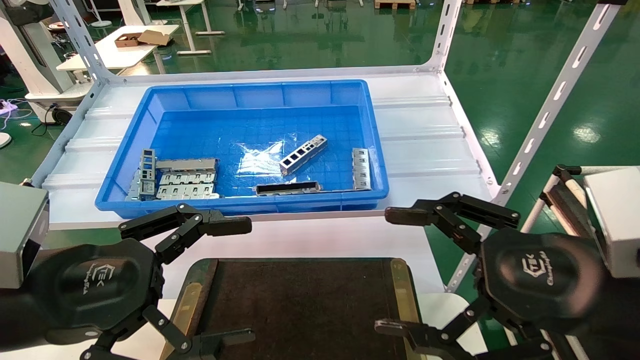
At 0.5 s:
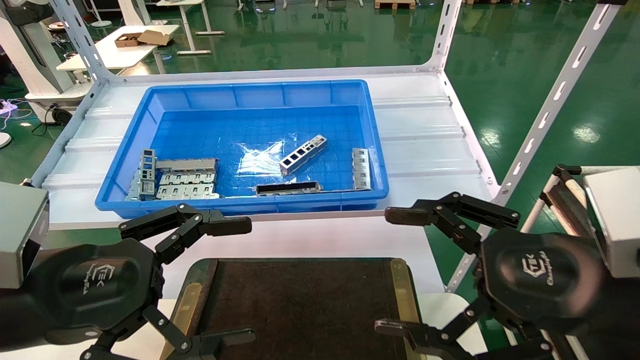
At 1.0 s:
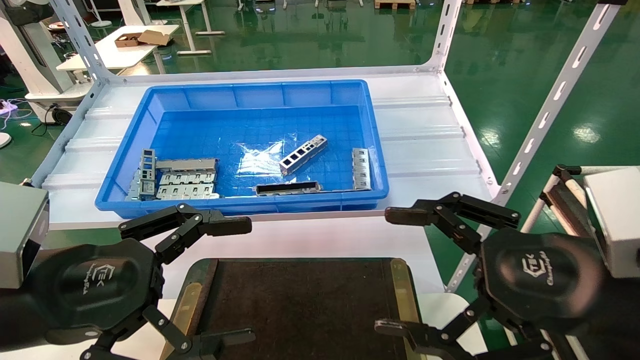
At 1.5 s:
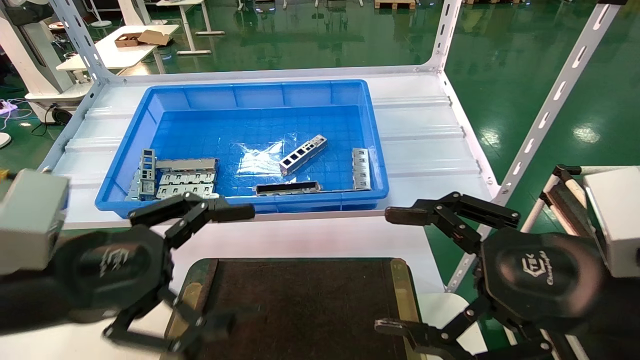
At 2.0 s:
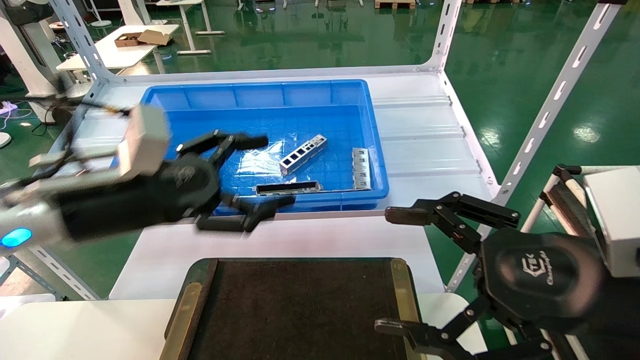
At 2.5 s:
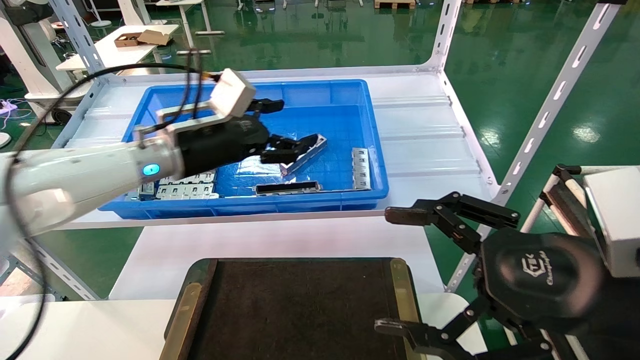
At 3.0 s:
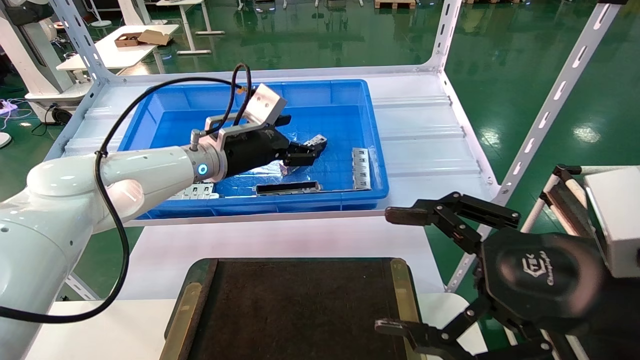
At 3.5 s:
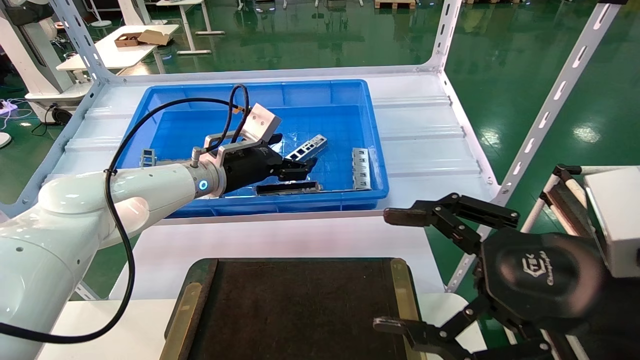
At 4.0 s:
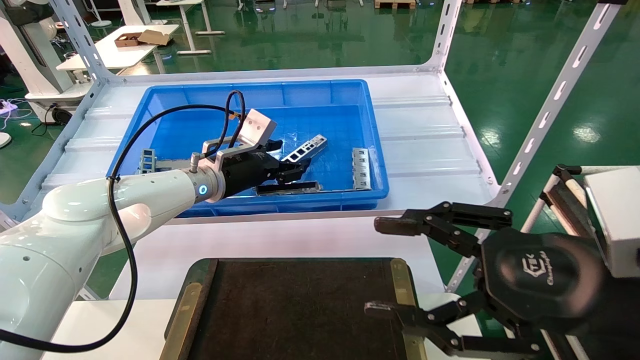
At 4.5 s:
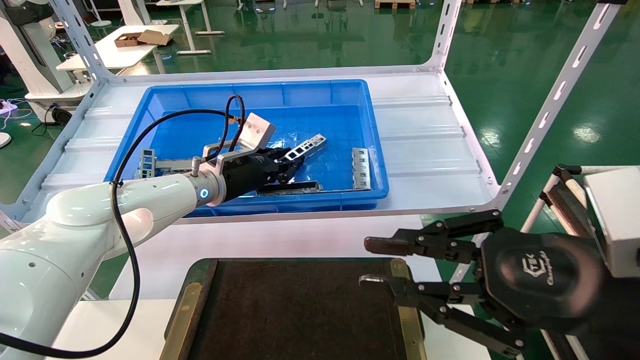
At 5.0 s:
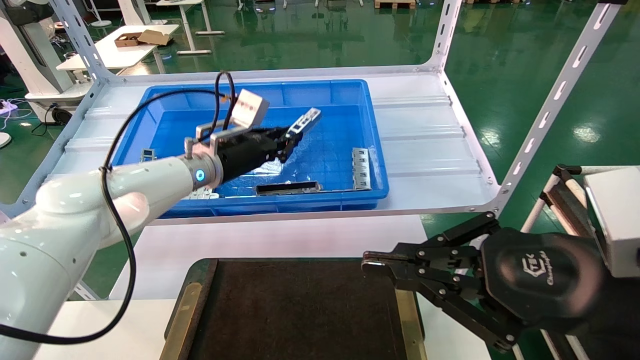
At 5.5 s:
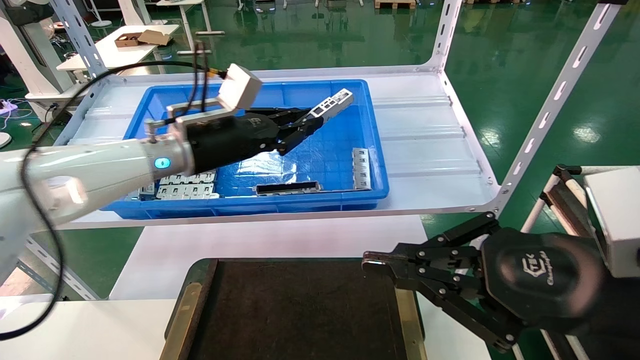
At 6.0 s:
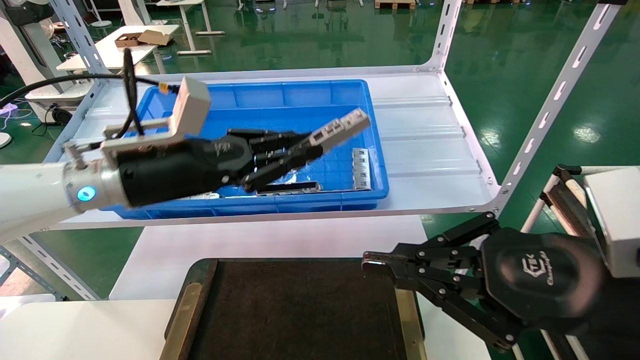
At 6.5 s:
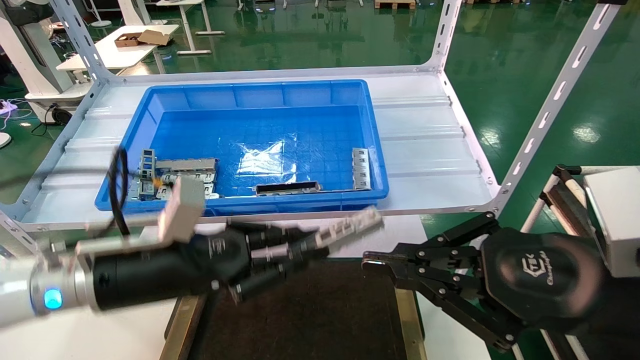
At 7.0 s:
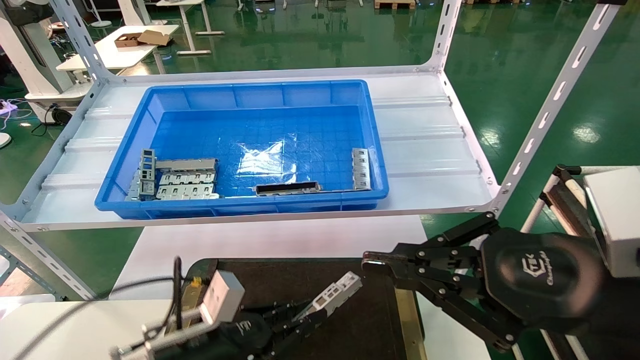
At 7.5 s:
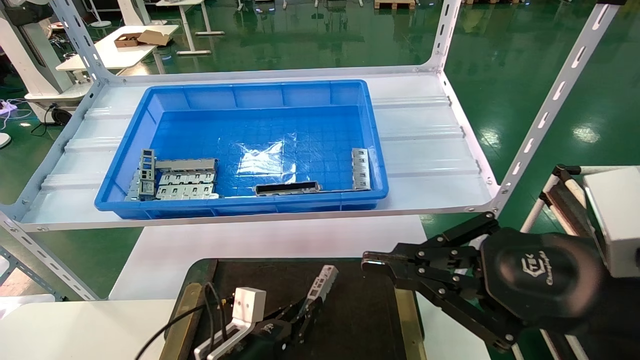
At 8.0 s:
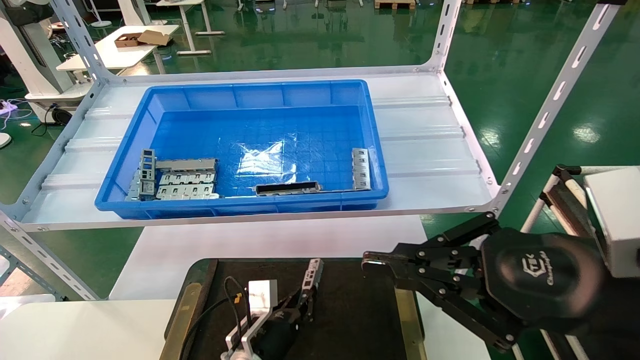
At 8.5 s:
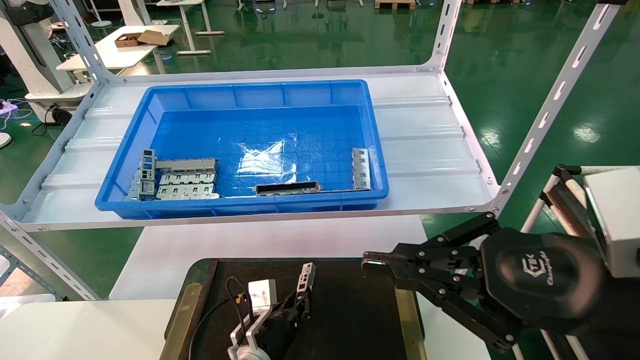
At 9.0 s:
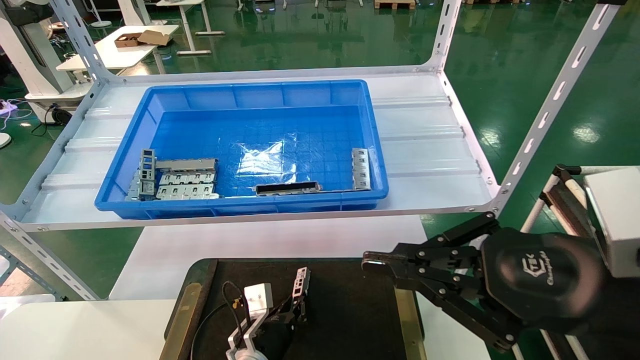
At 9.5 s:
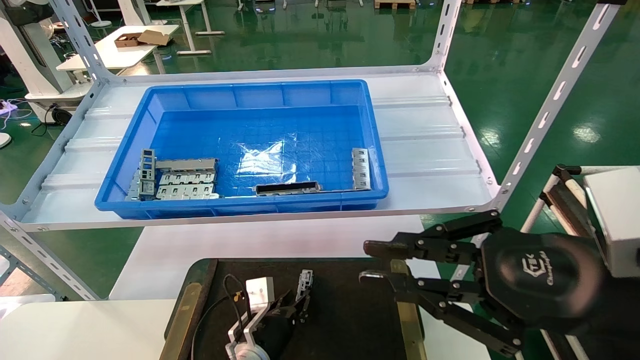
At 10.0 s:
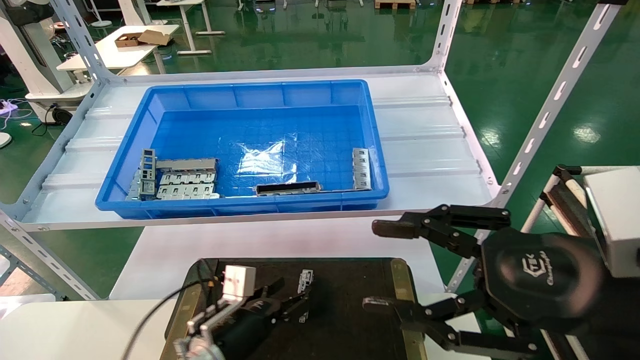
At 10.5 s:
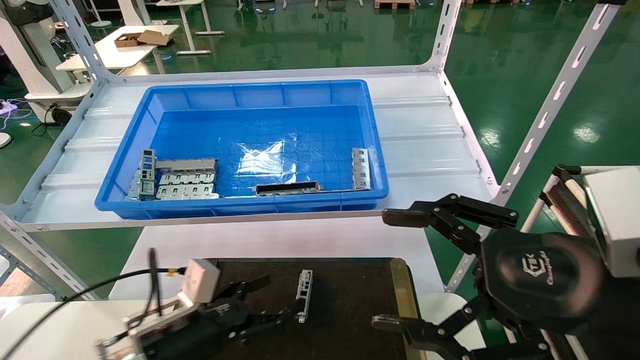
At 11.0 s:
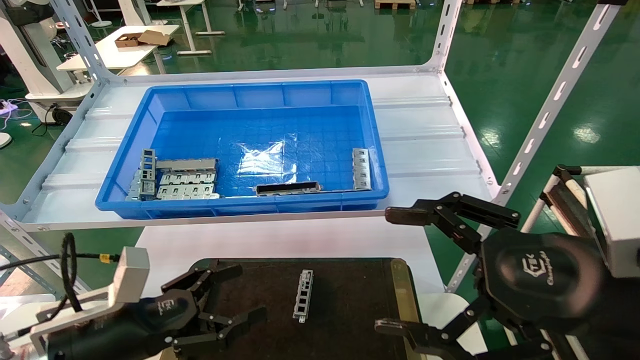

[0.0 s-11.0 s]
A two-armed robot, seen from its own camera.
Task of the whole recording: Grasp the part with one hand and place it on the black container.
Step, 2.0 to 5.0 s: Pick up the front USB bracket from the feeding area.
Step, 5.5 to 9.5 s: Place the front USB bracket into the box.
0.0 to 2.0 s: The left gripper is displaced forward by roughly 10 cm.
2.0 to 3.5 s: The left gripper travels forward and to the right by approximately 20 cm.
3.5 to 5.5 s: The right gripper closes, while the left gripper travels backward by roughly 5 cm, and closes its fingers.
5.5 to 7.5 s: The left gripper heads downward, covering about 30 cm.
7.5 to 9.0 s: The left gripper shifts roughly 5 cm forward.
9.0 to 11.0 s: The left gripper heads to the left, upward and backward, covering roughly 25 cm, and opens up, while the right gripper opens.

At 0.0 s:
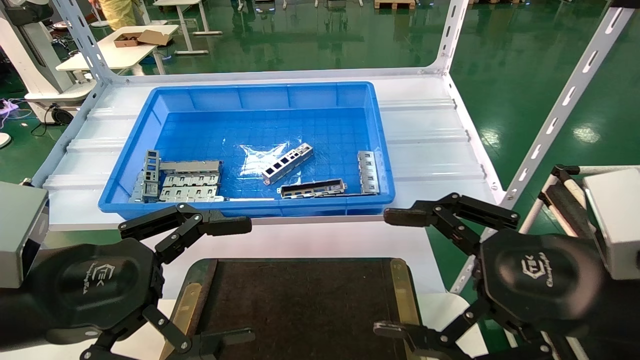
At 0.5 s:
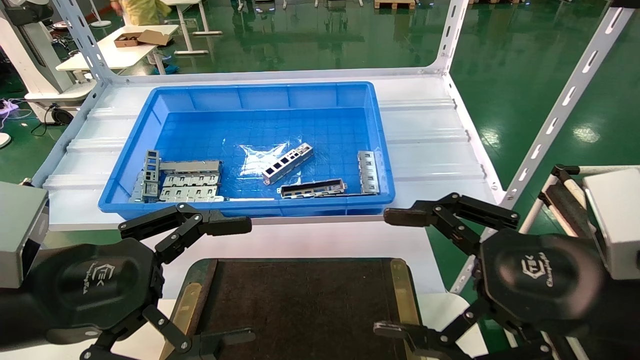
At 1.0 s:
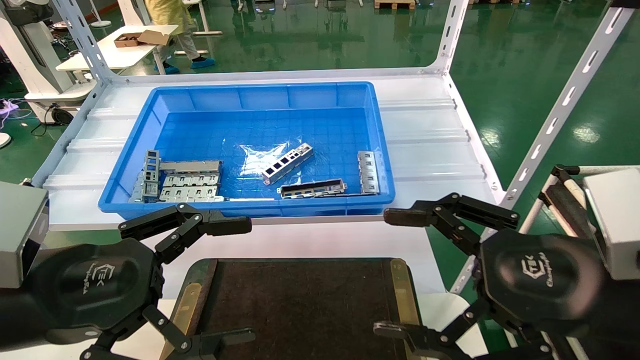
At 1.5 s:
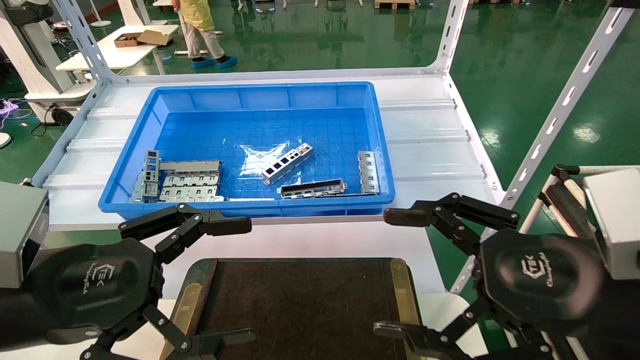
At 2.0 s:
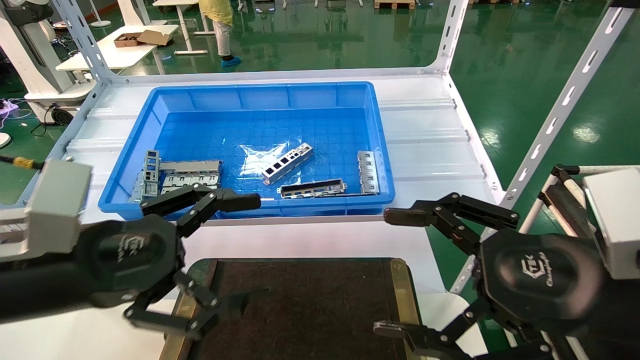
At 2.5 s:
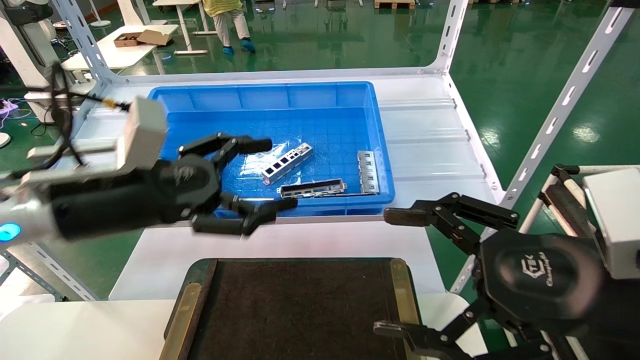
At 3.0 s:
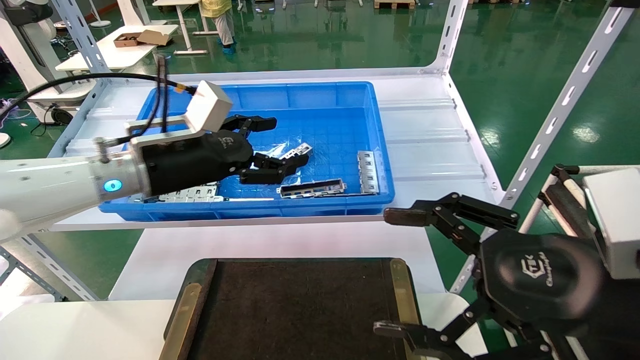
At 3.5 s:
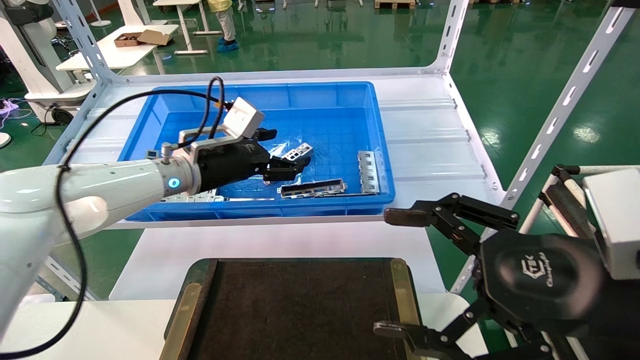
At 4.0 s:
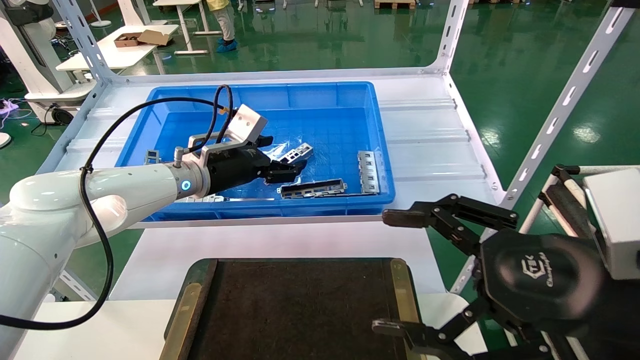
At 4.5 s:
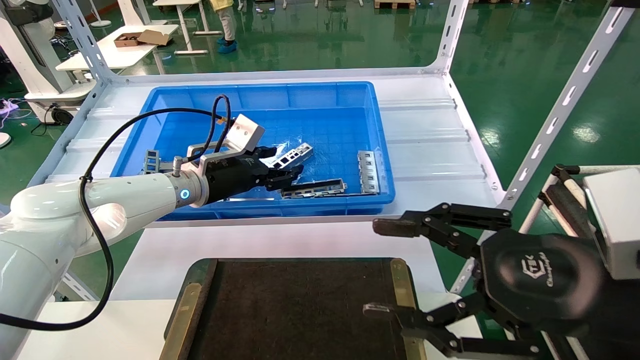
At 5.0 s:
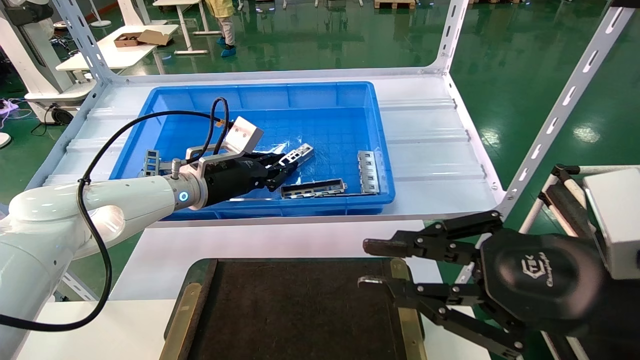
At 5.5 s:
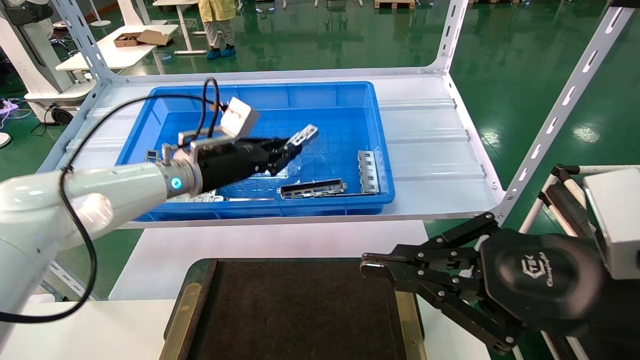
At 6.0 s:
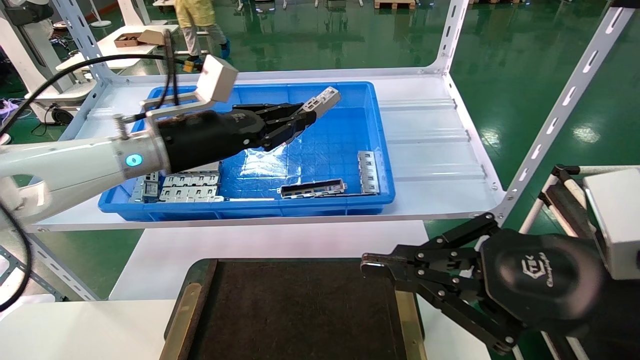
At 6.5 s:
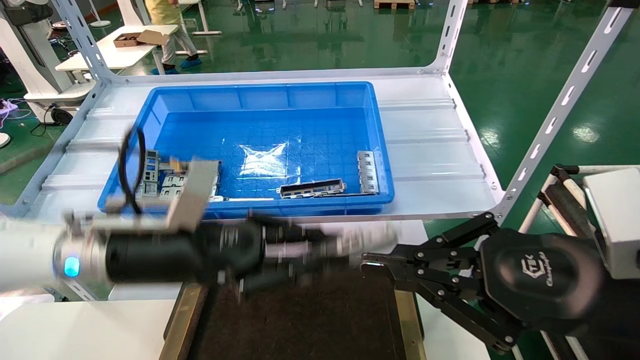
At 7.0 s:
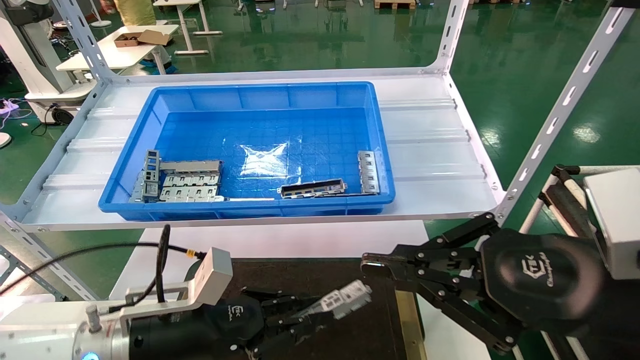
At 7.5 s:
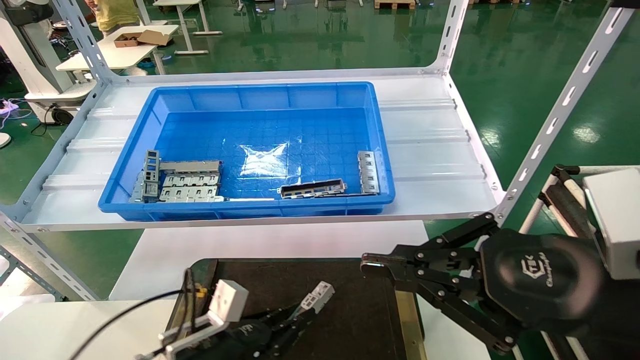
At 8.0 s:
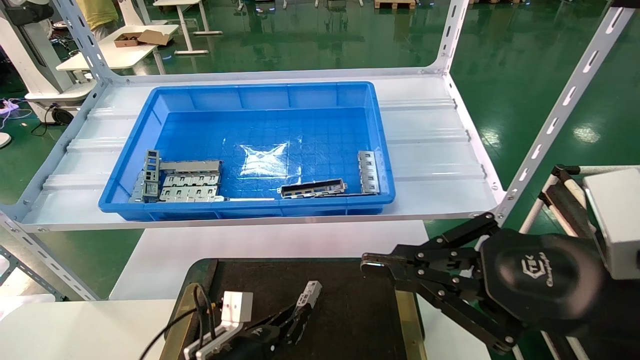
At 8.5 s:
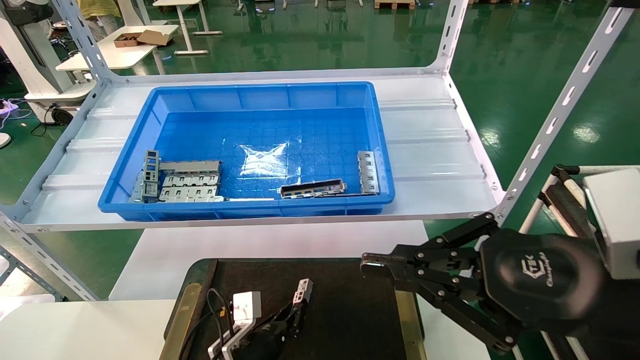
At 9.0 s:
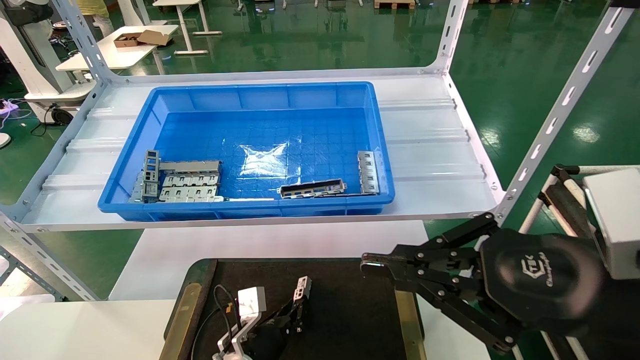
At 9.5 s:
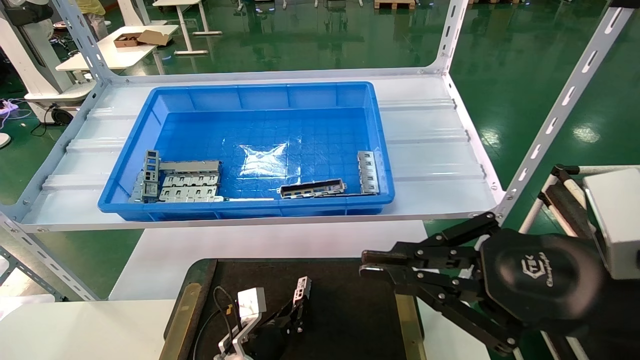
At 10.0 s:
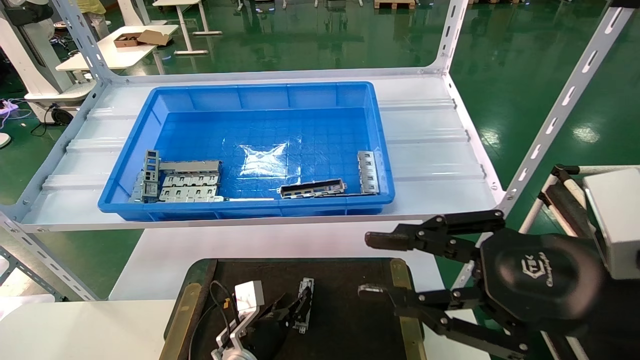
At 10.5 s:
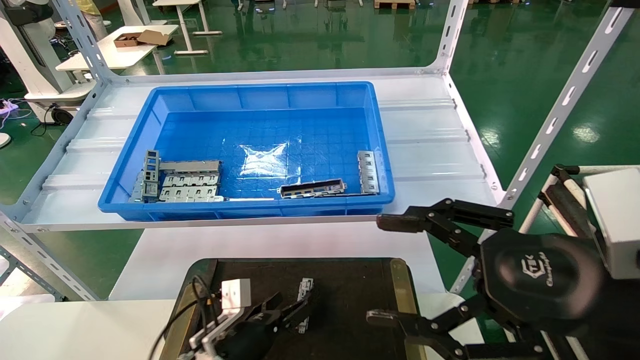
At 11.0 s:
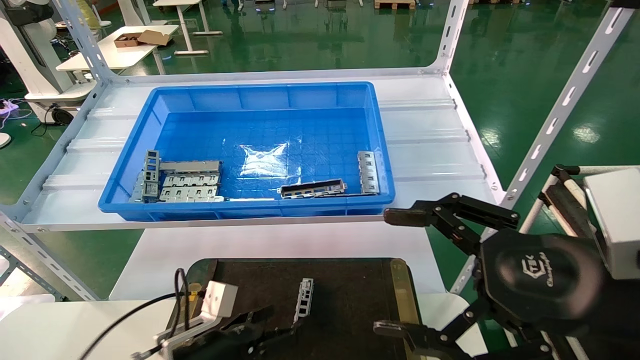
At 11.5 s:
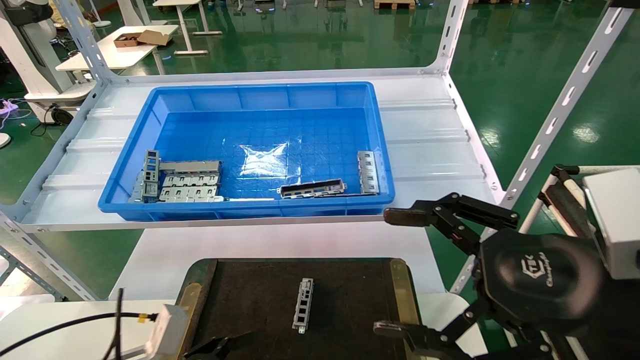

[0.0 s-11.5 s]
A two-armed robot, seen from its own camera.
Task of the whole recording: Grasp the part with one hand and place it on the black container.
Step, 2.0 to 4.5 s: Pick up the front USB bracket from the feeding area.
Step, 5.0 to 9.5 s: Place the front USB bracket into the box.
0.0 to 2.0 s: The grippers stay close to where they were, moving slightly.
2.0 to 4.0 s: The left gripper moves forward, approximately 25 cm.
4.0 to 6.0 s: The left gripper moves backward, about 5 cm, and closes its fingers; the right gripper closes.
6.0 to 7.5 s: The left gripper shifts approximately 30 cm downward.
7.5 to 9.5 s: The left gripper is displaced downward, forward and to the right by some 15 cm.
9.5 to 11.5 s: The left gripper goes some 20 cm backward, to the left and upward, and opens its fingers. The right gripper opens.
